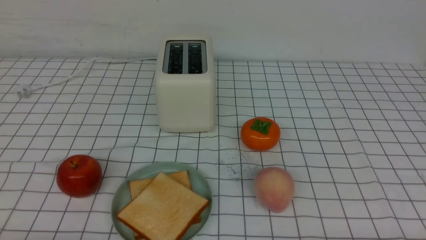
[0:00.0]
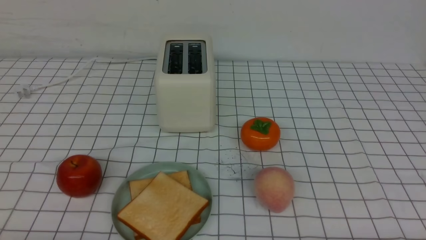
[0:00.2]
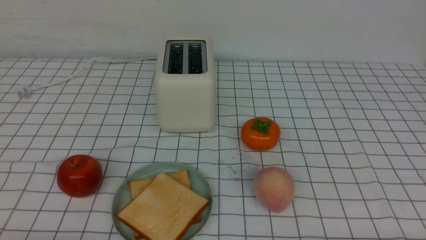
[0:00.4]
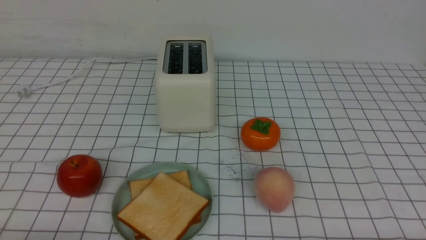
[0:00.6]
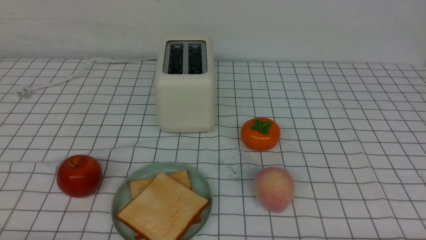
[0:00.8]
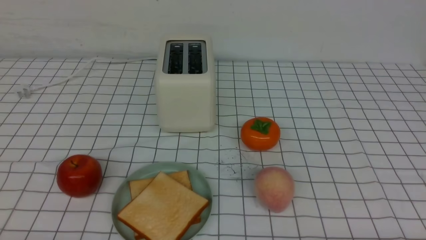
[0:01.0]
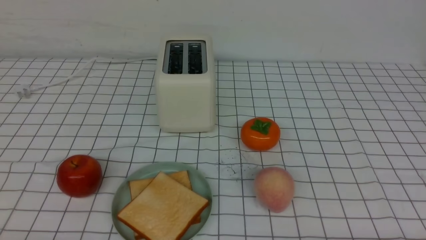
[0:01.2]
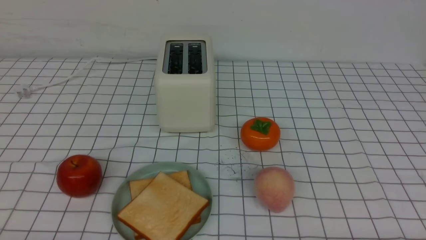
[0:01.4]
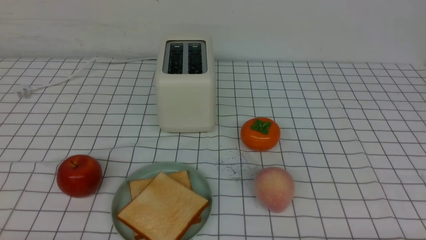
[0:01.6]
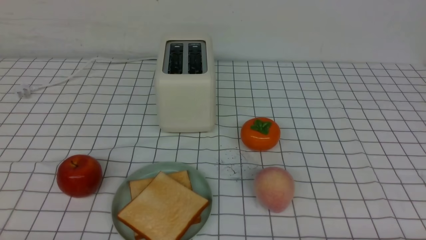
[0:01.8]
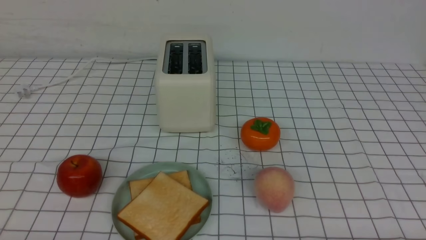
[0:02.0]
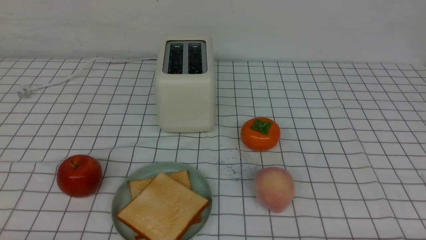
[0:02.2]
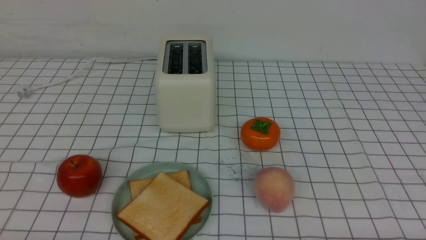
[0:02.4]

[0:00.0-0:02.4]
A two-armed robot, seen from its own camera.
Task of the whole recording: take toasted bread from bread machine on white checkered table place on plate.
0:01.2 to 0:02.4: Neither gripper changes place.

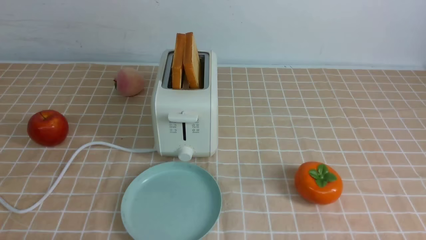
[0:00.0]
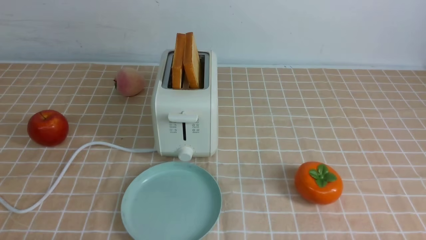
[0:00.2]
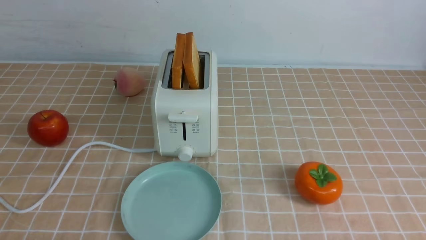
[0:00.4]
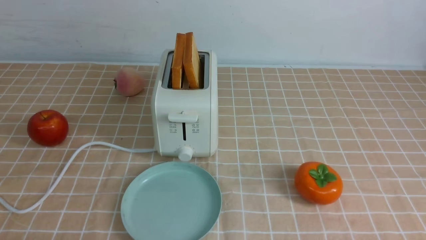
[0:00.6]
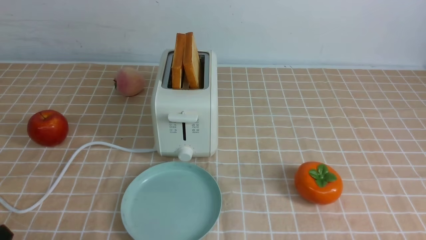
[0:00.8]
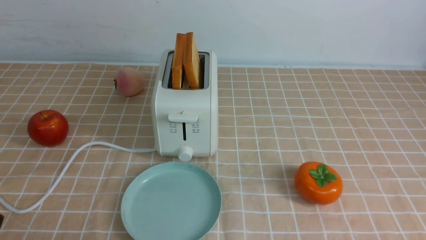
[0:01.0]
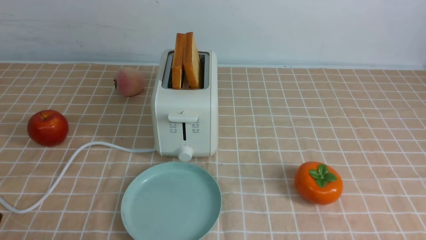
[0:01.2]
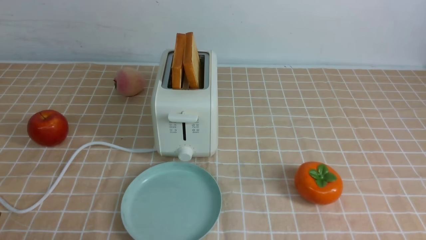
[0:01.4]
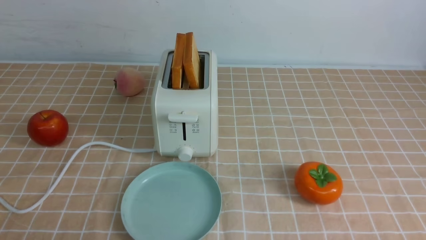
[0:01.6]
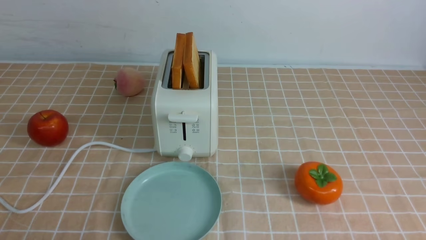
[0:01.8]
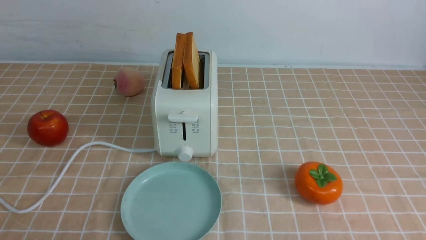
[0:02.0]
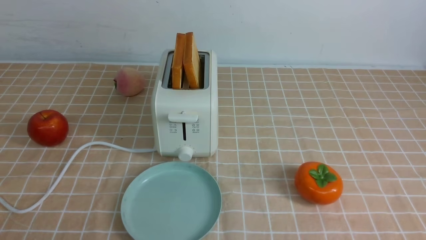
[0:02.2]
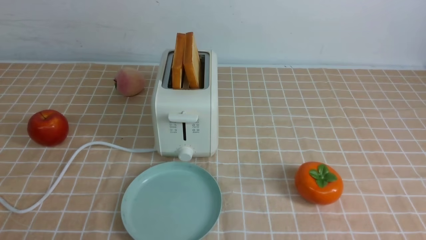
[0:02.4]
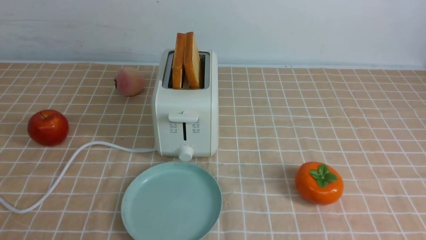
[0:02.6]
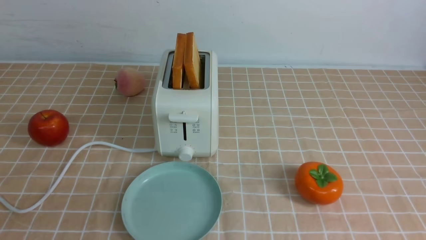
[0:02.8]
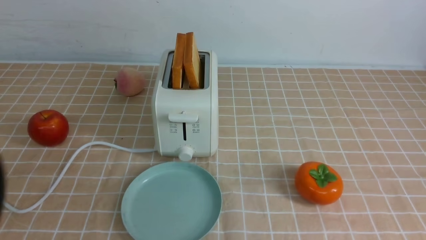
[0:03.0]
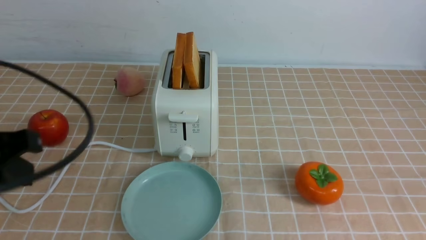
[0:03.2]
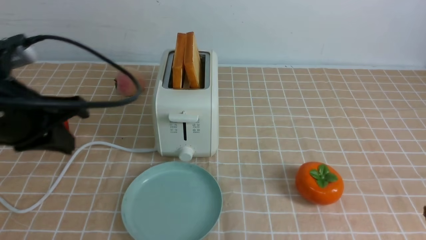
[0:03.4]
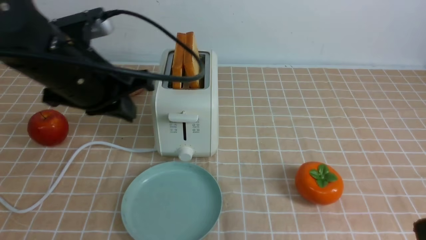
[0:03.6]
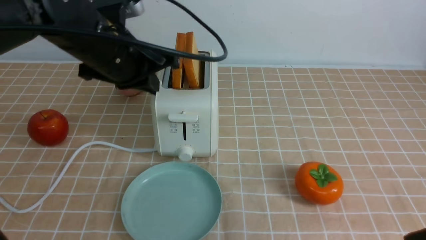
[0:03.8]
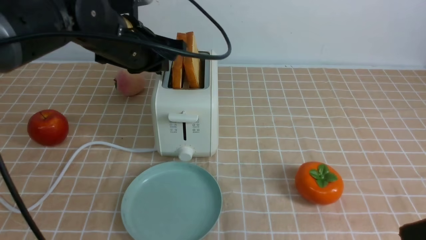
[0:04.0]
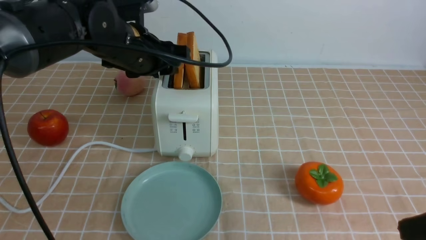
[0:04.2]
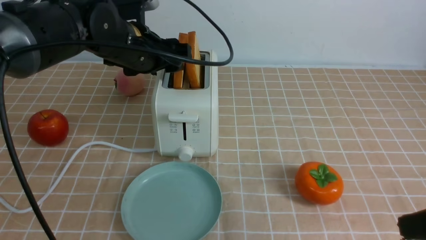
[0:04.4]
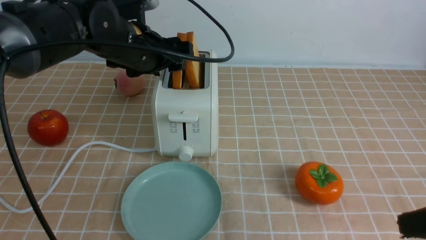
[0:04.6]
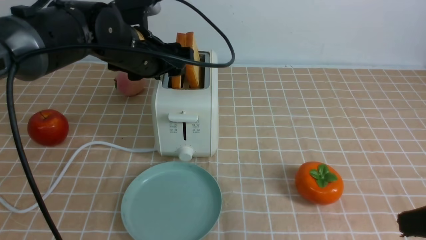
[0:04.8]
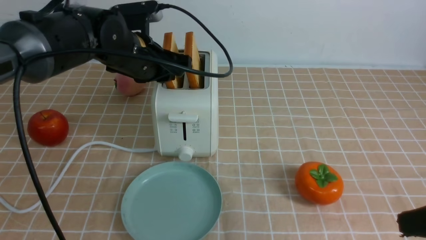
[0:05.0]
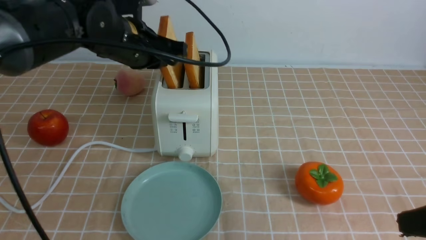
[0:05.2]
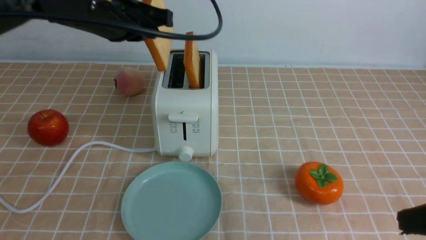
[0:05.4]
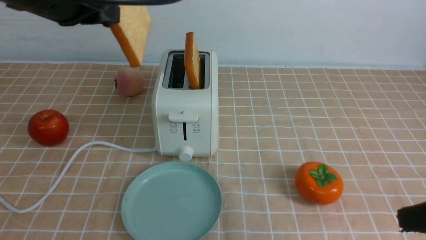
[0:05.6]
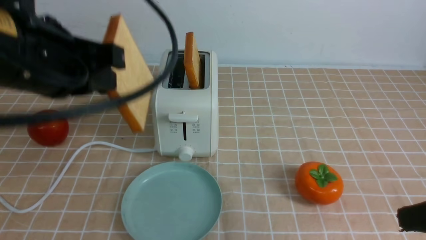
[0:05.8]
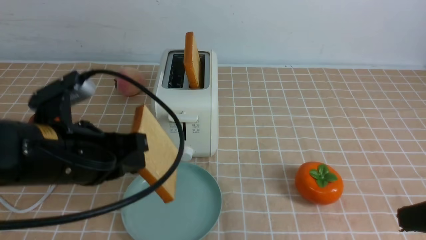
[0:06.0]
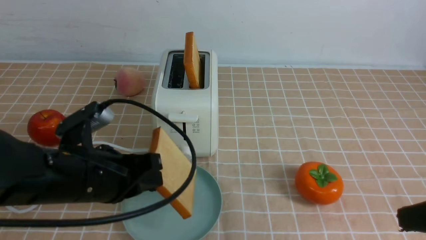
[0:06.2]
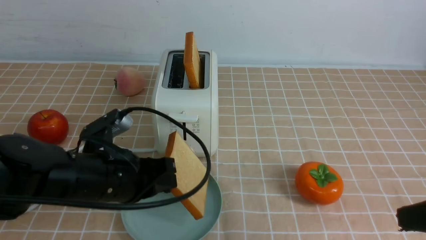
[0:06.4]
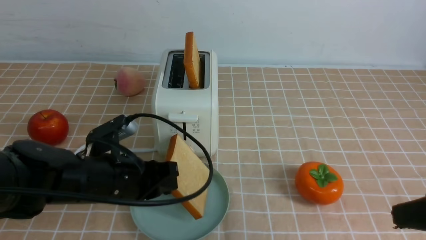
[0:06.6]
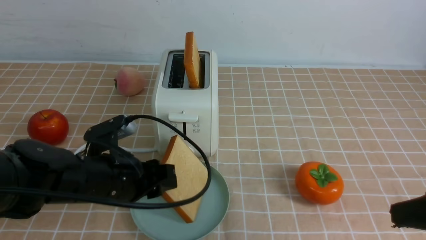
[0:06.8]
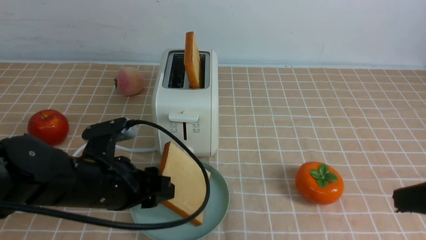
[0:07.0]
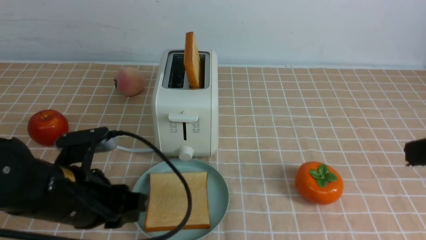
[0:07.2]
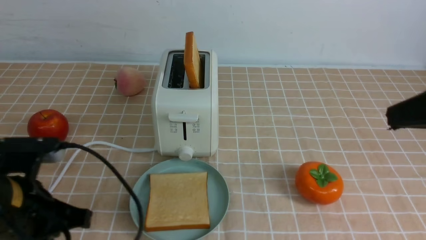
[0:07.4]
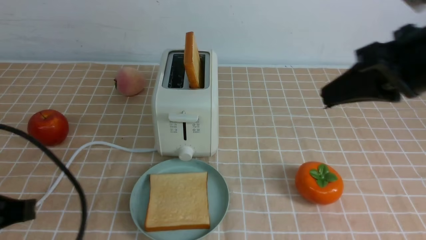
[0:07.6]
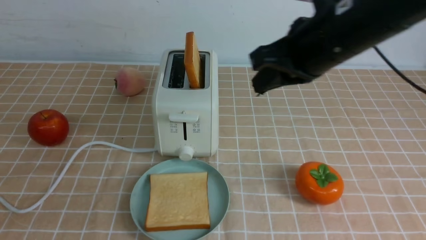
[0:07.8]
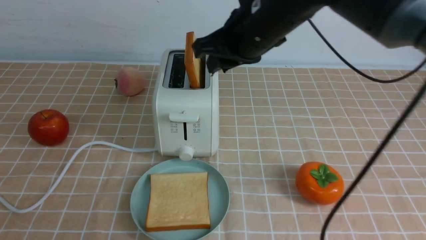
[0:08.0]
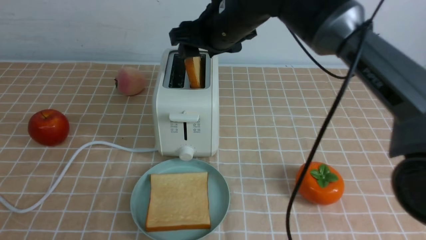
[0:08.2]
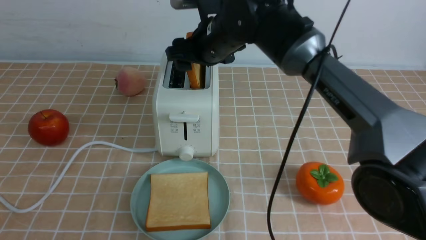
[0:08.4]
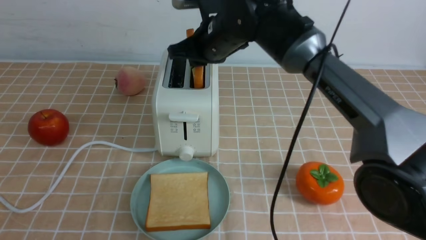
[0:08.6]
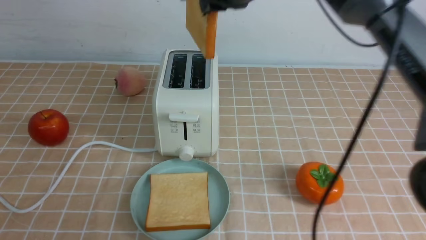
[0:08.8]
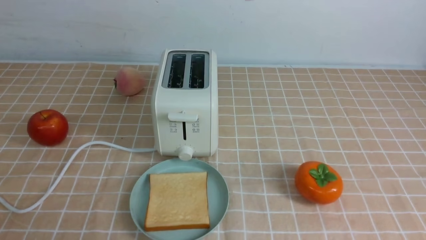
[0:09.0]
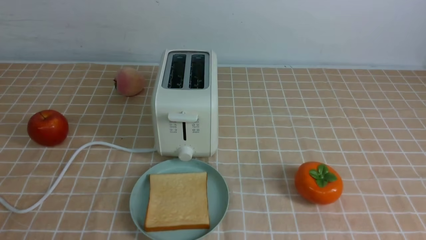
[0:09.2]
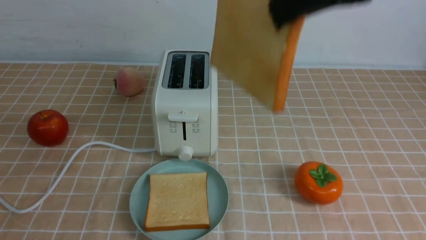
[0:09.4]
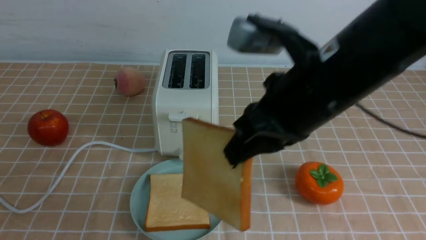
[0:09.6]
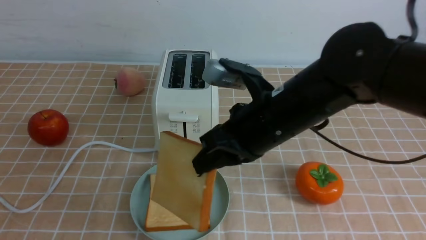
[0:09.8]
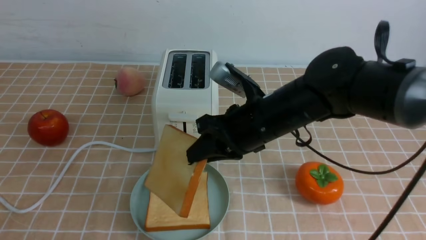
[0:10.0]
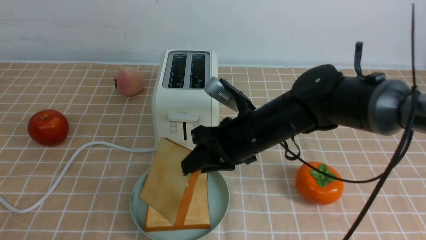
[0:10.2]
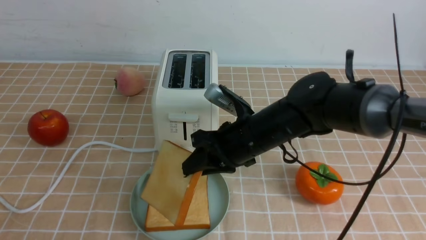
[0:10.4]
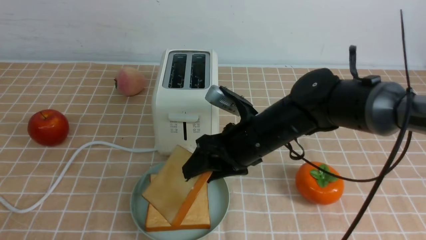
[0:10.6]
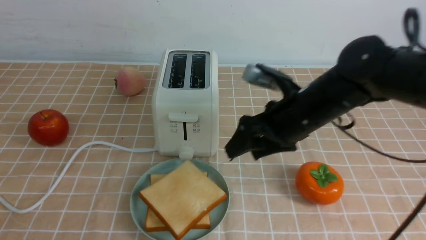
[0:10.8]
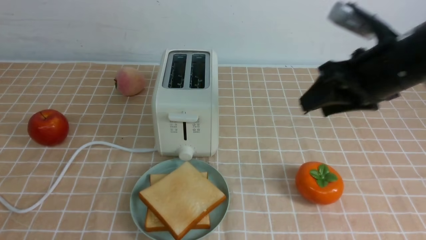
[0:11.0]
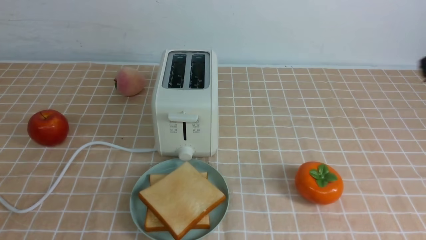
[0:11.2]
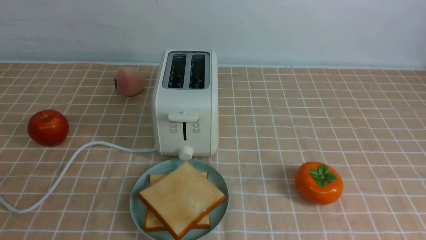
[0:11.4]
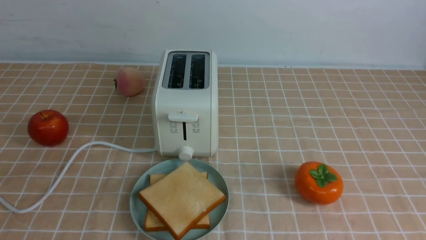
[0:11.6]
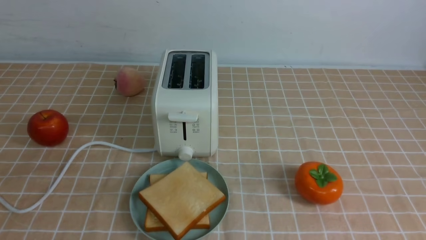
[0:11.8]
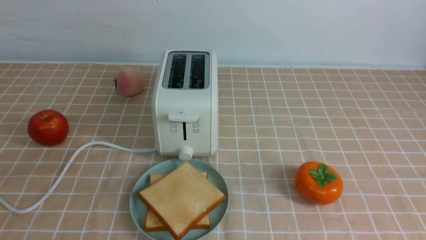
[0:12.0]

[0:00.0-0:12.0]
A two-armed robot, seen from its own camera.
Task of the whole recording: take toasted bread from bread machine on light coffee tablecloth place on plate.
Step, 0:00.0 to 0:05.2: use the left arm to take out a slice of bread.
Step, 0:05.4 to 0:07.0: use the left arm to put a slice of bread into the empty plate.
Step, 0:07.2 to 0:08.6: use the right arm to take out a slice of bread.
Step, 0:08.8 to 0:10.6: use the right arm to put a slice of bread into the plate.
0:03.0 to 0:04.4: The left gripper heads forward and to the right, covering approximately 30 cm, and opens its fingers, while the right gripper travels forward and downward by roughly 10 cm, and closes its fingers.
0:04.4 to 0:06.0: The left gripper heads backward, covering about 15 cm, and closes its fingers.
0:06.0 to 0:07.6: The left gripper travels backward and to the left by roughly 15 cm, and opens, then closes again, while the right gripper moves forward, upward and to the left, roughly 15 cm.
0:07.6 to 0:09.0: The left gripper shifts about 10 cm backward; the right gripper moves upward and to the left, approximately 15 cm, and opens, then closes again.
0:09.0 to 0:10.4: The right gripper is displaced downward by about 30 cm.
0:10.4 to 0:12.0: The left gripper goes roughly 5 cm forward, while the right gripper goes roughly 40 cm backward, to the right and upward, and closes.

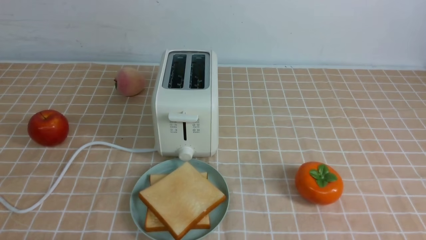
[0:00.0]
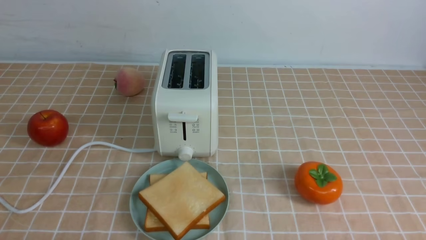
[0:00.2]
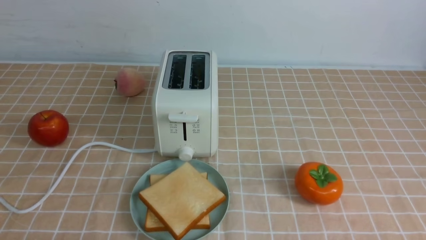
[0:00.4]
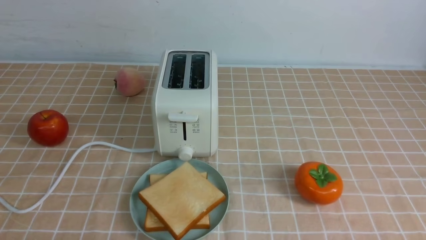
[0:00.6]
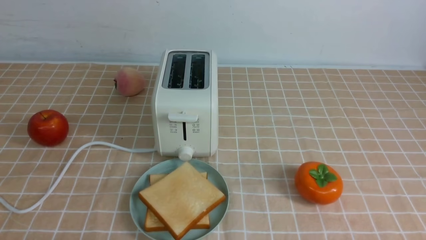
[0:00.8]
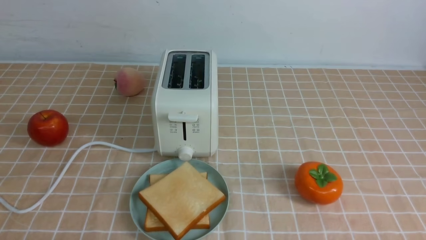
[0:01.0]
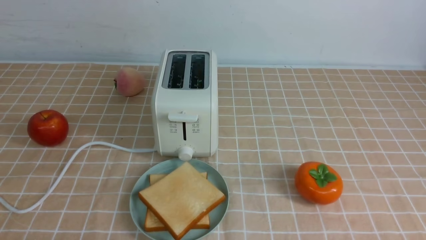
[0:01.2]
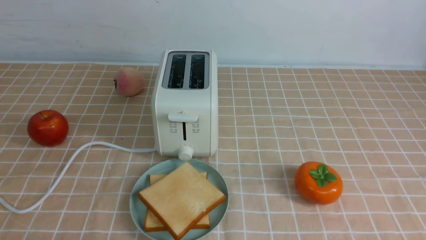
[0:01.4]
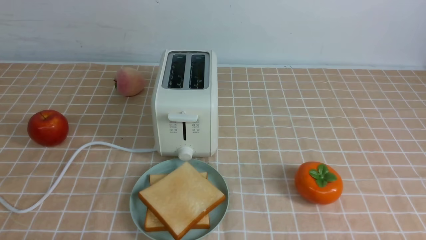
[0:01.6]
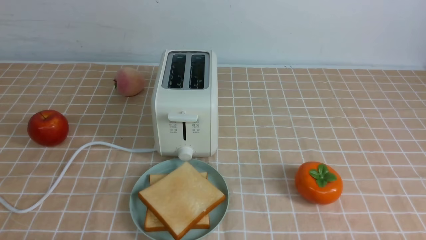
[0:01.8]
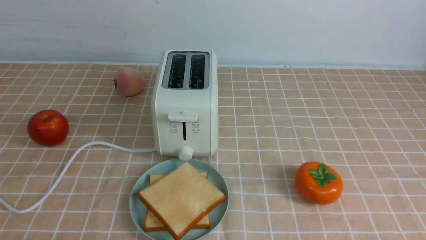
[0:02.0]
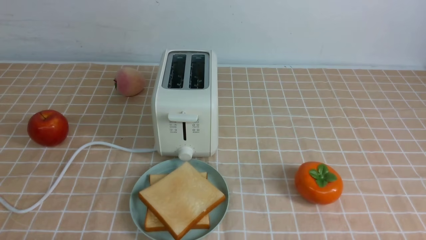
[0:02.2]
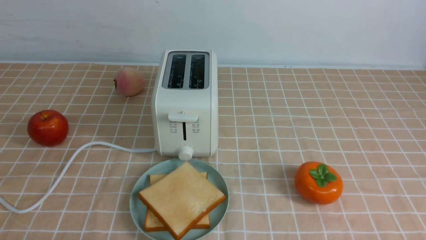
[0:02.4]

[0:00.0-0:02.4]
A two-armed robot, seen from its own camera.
Task of the whole recording: take toasted bread from bread machine on light coffee tablecloth place on plate.
0:01.2 to 0:02.4: The two grippers keep their place.
